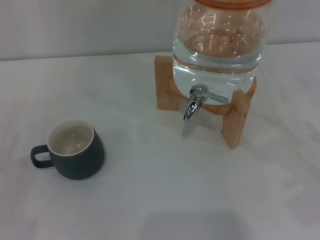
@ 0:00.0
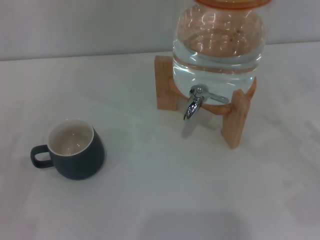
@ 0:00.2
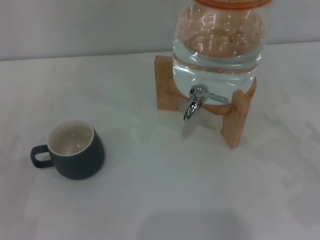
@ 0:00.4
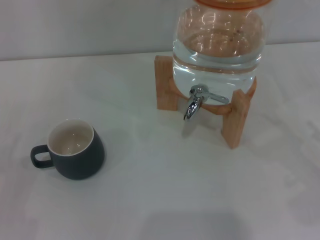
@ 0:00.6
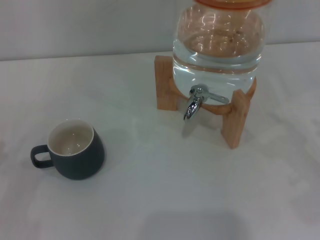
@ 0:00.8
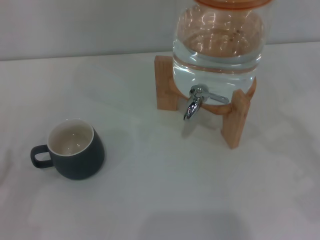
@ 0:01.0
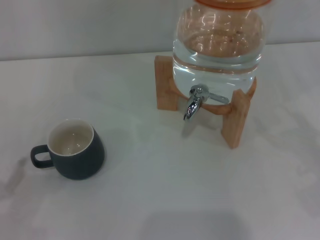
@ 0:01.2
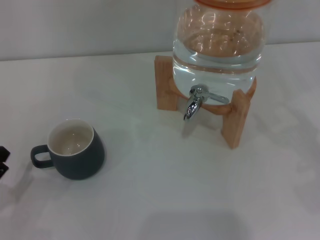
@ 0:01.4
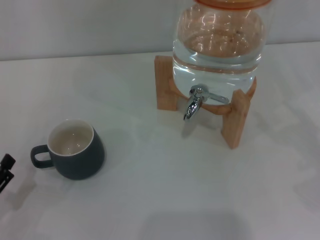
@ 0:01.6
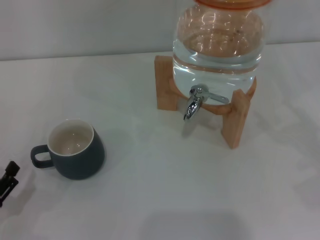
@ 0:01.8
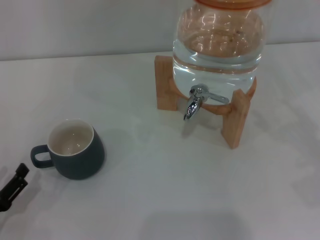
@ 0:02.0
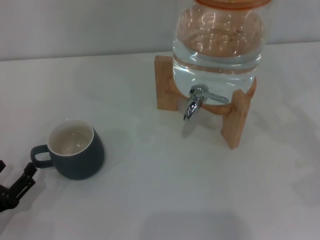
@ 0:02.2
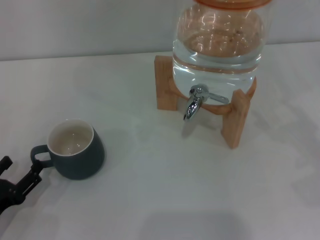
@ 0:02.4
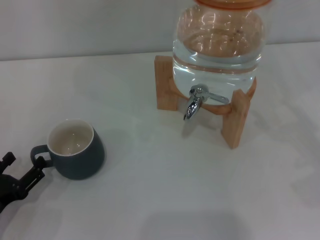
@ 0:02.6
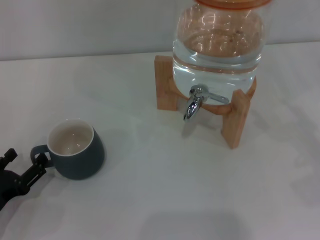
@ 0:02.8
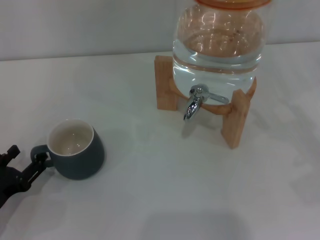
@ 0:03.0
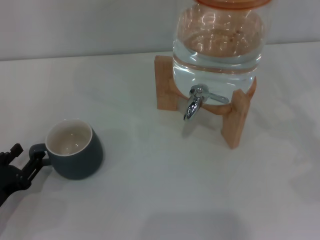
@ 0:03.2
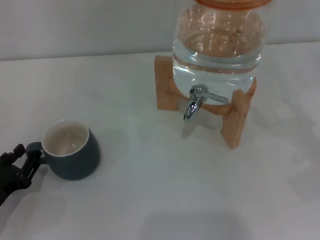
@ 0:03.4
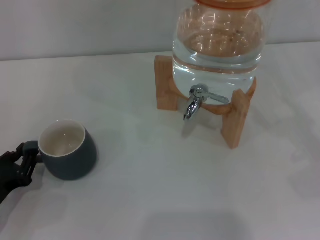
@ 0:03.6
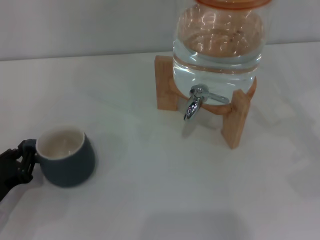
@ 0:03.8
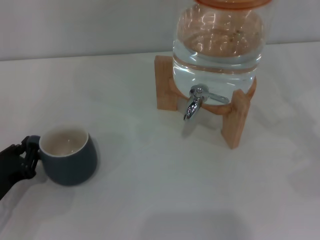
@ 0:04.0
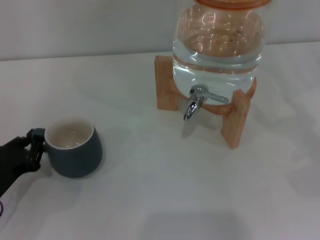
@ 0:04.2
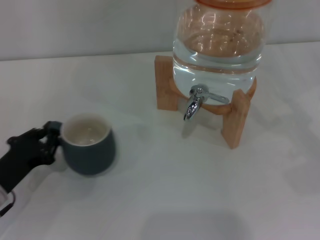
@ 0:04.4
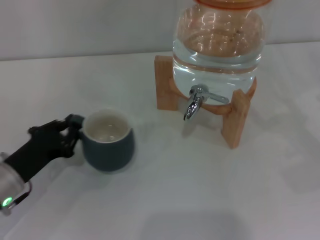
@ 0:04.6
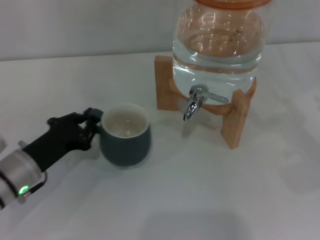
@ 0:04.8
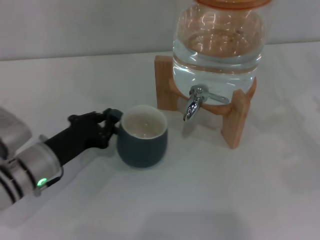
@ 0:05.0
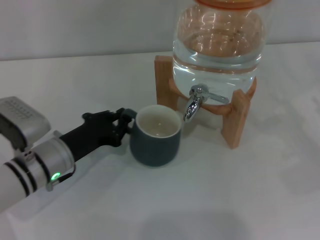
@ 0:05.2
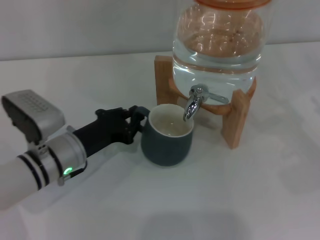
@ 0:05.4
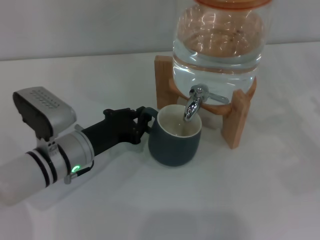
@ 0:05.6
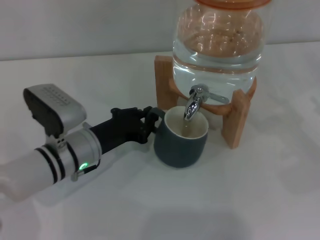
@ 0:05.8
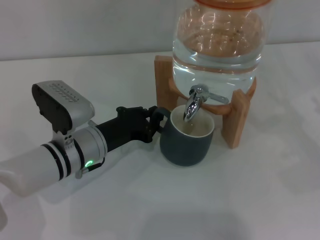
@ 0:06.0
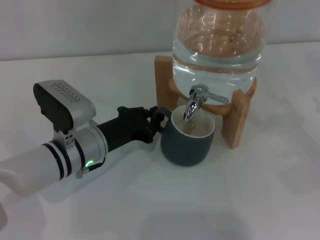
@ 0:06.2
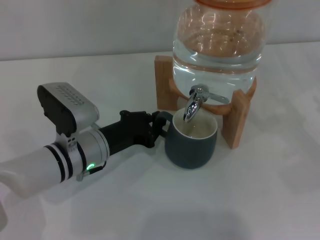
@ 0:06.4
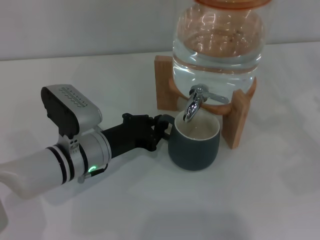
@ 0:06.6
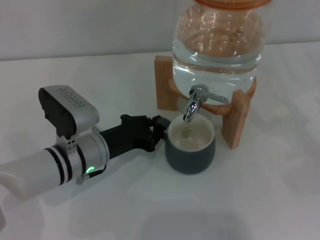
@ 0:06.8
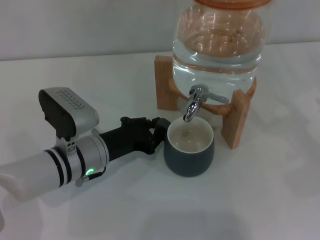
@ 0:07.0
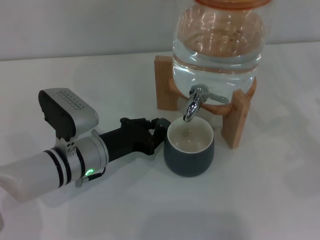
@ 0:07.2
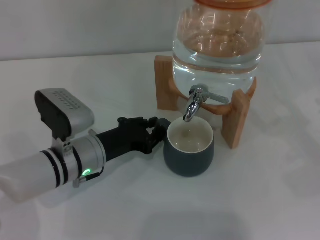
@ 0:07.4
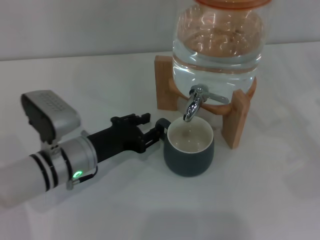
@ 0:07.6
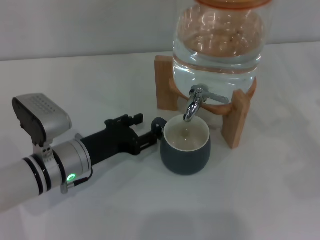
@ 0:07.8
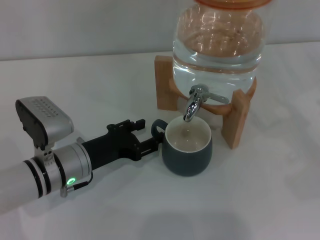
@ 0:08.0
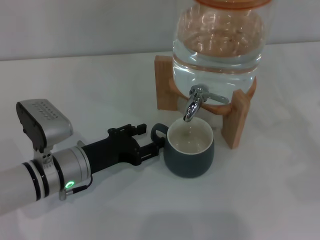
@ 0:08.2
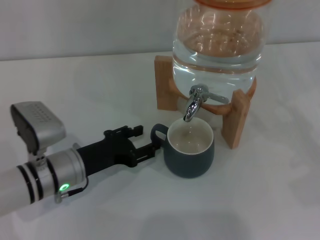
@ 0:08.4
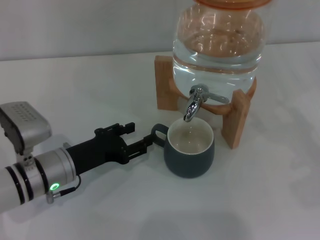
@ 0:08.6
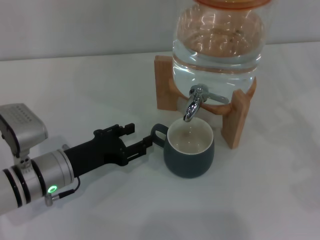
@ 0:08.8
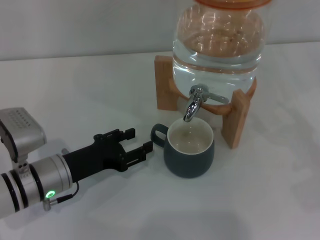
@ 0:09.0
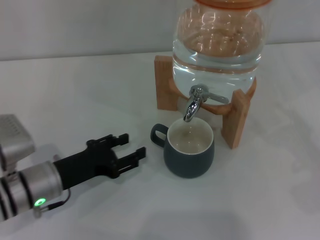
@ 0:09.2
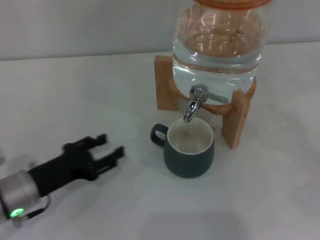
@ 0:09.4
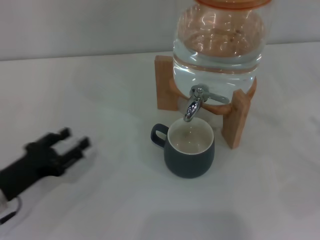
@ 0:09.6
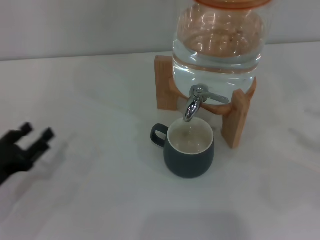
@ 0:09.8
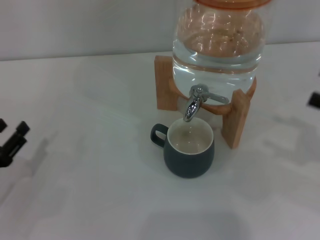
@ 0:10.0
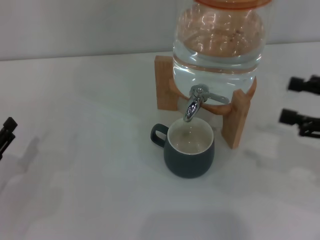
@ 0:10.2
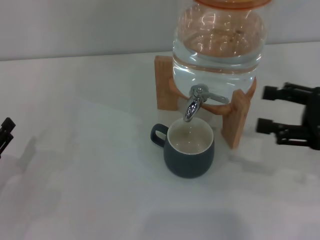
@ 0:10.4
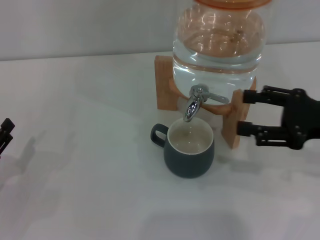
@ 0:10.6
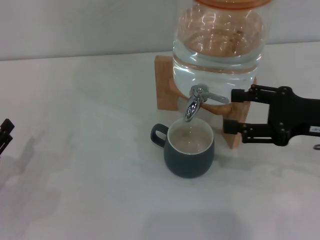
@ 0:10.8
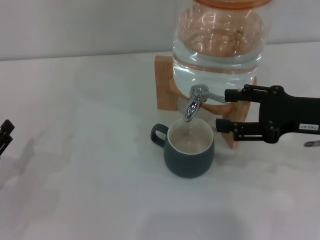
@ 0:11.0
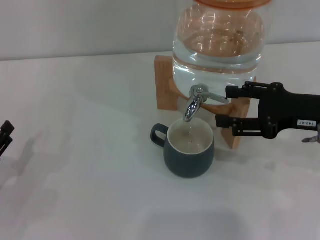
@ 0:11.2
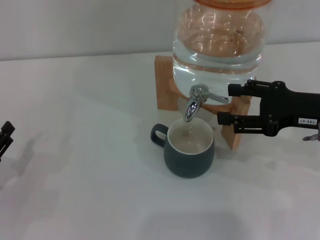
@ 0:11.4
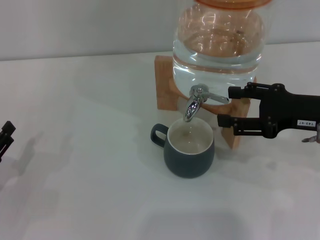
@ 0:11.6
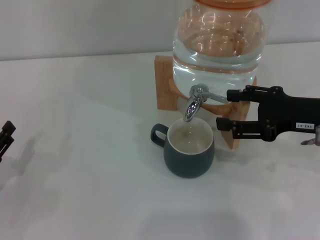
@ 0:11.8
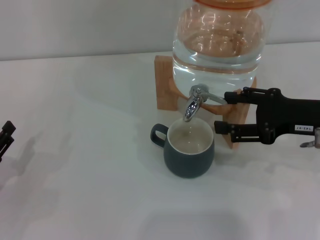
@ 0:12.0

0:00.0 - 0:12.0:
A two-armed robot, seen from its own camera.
Task of the whole recording: the left gripper pick up the black cup and place it horizontally under the faucet, the right gripper turn on the faucet to fill the cup, and then turn off the faucet.
Step, 0:00.0 - 0:09.0: Move the cup beneath the water dispenser nozzle with the left gripper.
0:00.0 - 0:01.6: The left gripper moves some 5 cm.
0:01.6 - 0:03.0: The left gripper shifts by approximately 5 cm.
0:03.0 - 0:04.4: The left gripper ends up about 5 cm from where it was, and closes up.
0:04.4 - 0:06.0: The left gripper heads to the right and forward, covering approximately 15 cm.
0:06.0 - 0:07.6: The grippers stay close to where they were, moving slightly.
0:07.6 - 0:09.0: The left gripper opens up.
0:09.0 - 0:10.4: The left gripper shifts roughly 15 cm to the left and backward. The right gripper goes approximately 10 cm to the left and upward.
0:10.4 - 0:12.0: The right gripper shifts by about 5 cm.

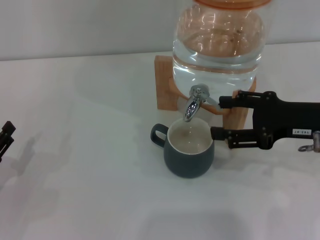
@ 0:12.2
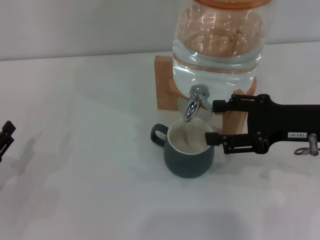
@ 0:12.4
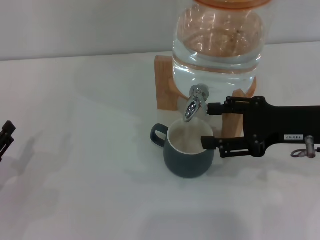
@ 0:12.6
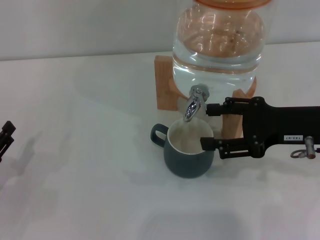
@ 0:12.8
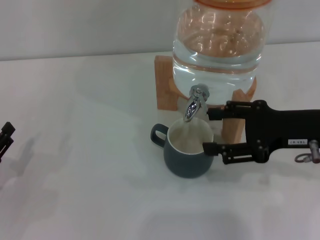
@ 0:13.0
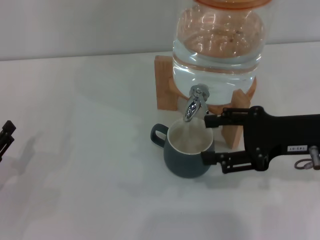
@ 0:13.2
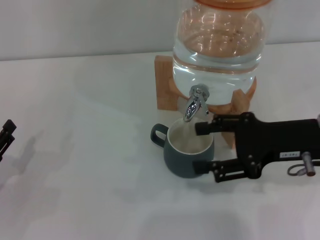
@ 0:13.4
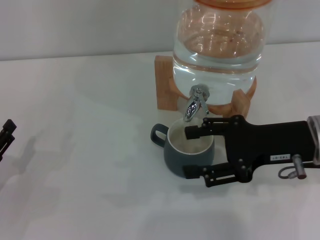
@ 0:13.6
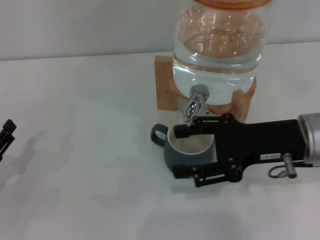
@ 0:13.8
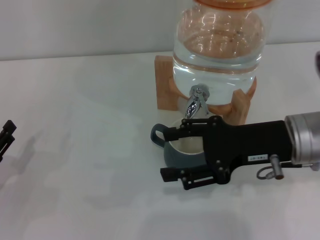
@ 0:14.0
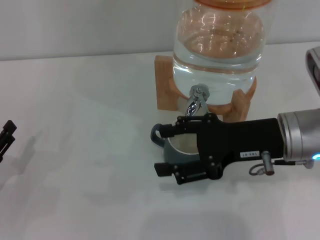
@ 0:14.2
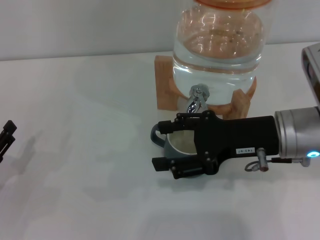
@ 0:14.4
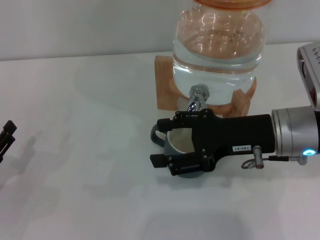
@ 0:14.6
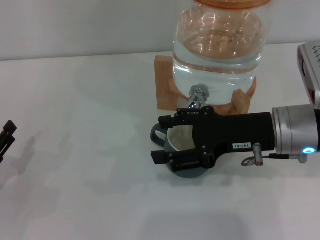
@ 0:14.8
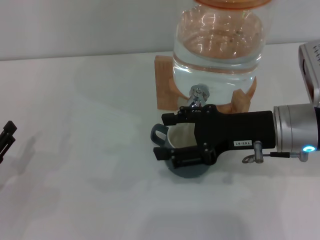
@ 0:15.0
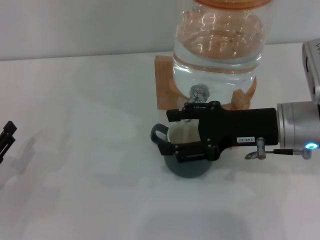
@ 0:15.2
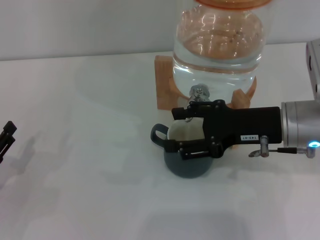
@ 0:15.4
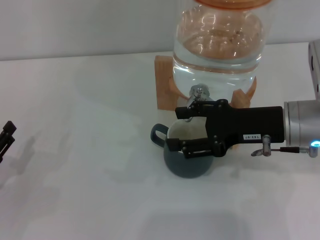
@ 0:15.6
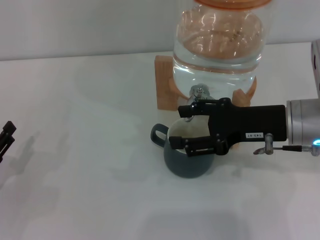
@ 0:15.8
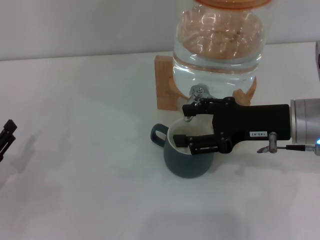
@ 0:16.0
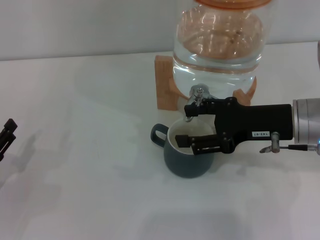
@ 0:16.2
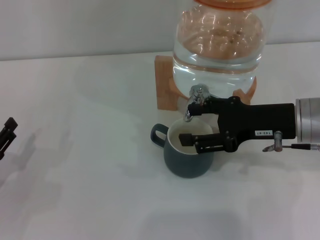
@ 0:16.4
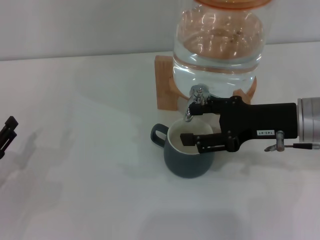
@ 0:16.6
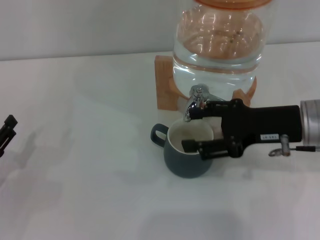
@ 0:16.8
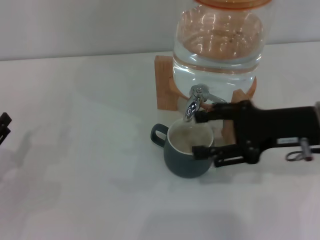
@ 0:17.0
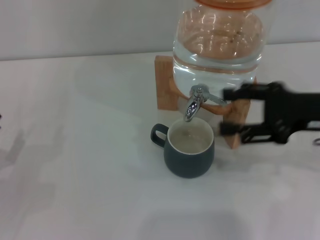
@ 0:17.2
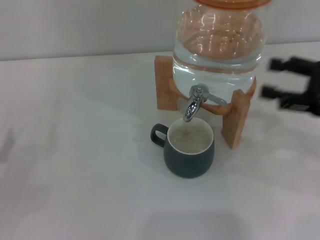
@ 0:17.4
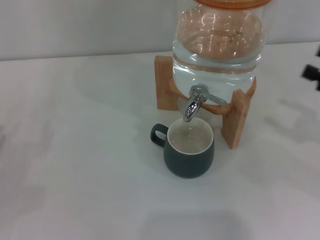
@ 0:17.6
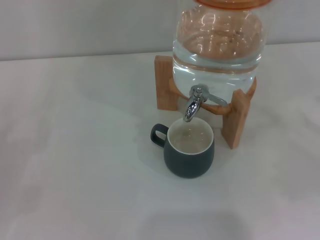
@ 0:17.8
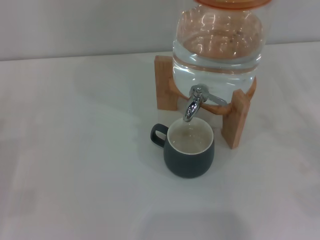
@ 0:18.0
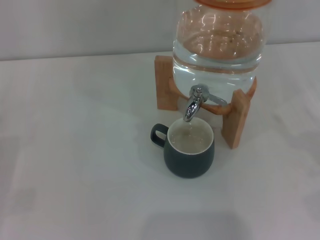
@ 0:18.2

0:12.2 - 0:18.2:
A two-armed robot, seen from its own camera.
Task of the whole recording: the left gripper pick up the black cup and place it horizontally under the faucet, the right gripper turn on the faucet to fill the cup, and then turn off the faucet.
Step, 0:12.2 - 0:14.4: Open the dispenser valve and fill the cup with water with the right gripper.
Step, 0:14.6 - 0:17.2: Close the dispenser valve with the right gripper.
0:12.2 - 0:13.8: The right gripper goes roughly 5 cm to the left.
0:13.8 - 0:16.6: There are only small adjustments of the grippers.
0:16.6 - 0:18.2: The left gripper travels to the left by roughly 5 cm. Meanwhile the right gripper heads to the right and backward, covering roughly 20 cm.
